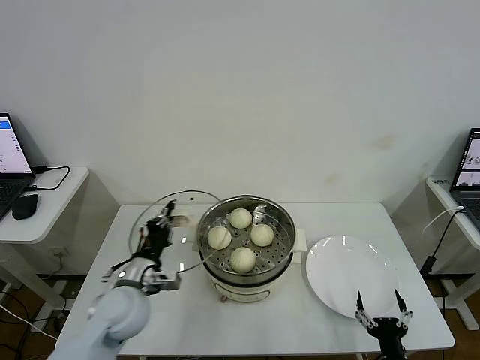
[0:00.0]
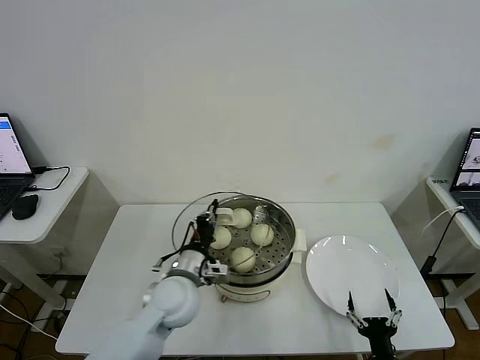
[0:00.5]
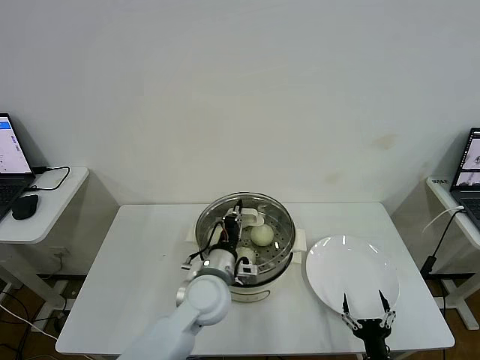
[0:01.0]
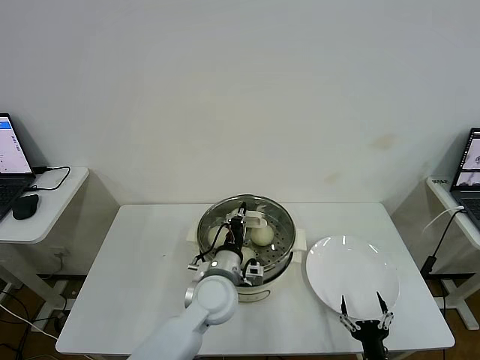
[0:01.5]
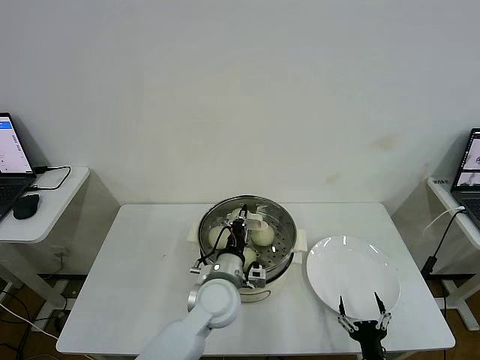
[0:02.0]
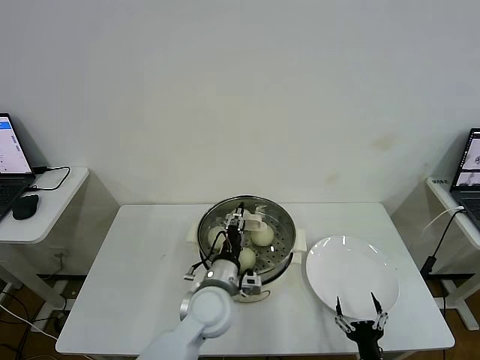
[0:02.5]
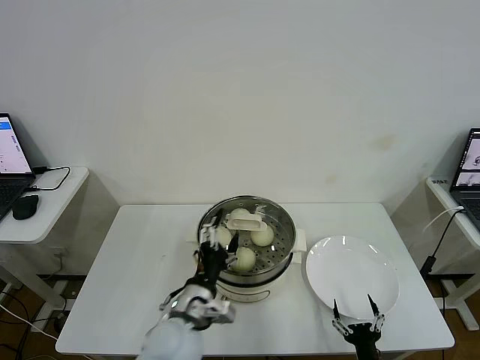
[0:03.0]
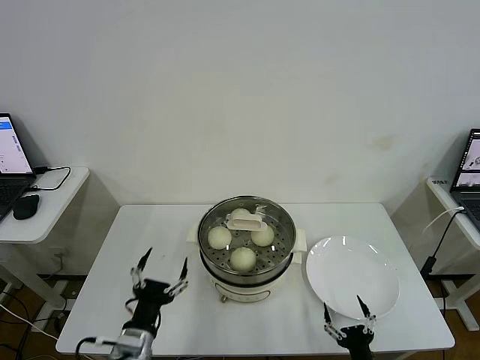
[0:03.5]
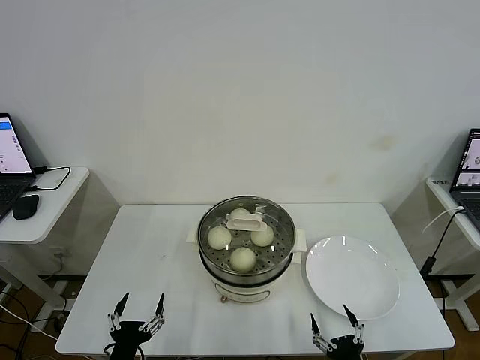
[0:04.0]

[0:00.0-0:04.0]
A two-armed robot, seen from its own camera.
Task of the whole recording: take steamed baozi put them in steamer then cover it.
Step, 0:00.0 to 0:02.5: Place the pot lid on the steamer with left gripper.
0:00.0 to 0:02.0: The left gripper goes approximately 20 cm to the right.
0:02.0 to 0:04.0: The right gripper ends up about 5 cm from where it was. Meanwhile the left gripper shifts roughly 30 cm backward and to the left, and opens up.

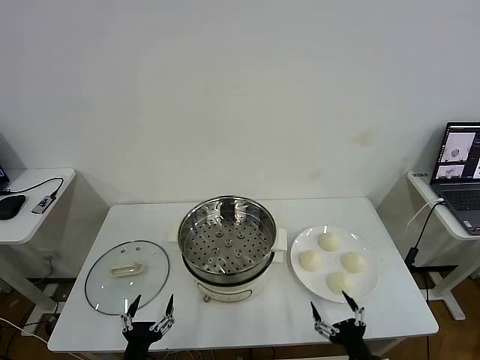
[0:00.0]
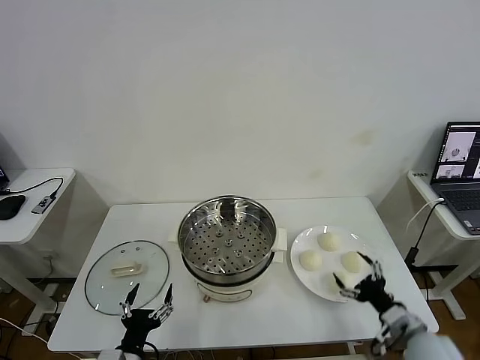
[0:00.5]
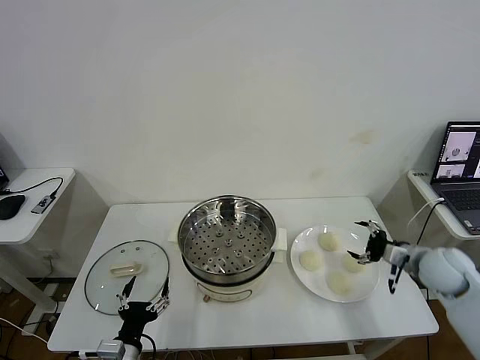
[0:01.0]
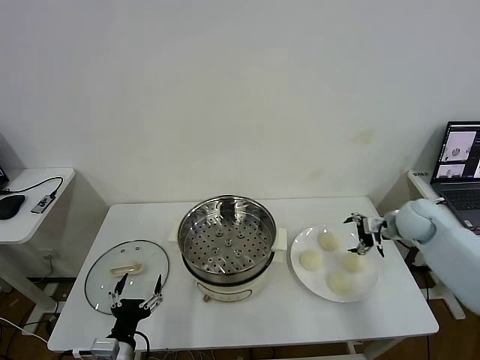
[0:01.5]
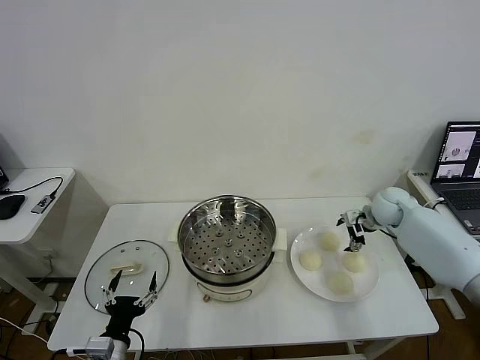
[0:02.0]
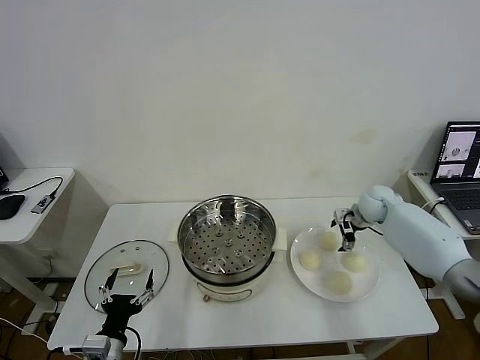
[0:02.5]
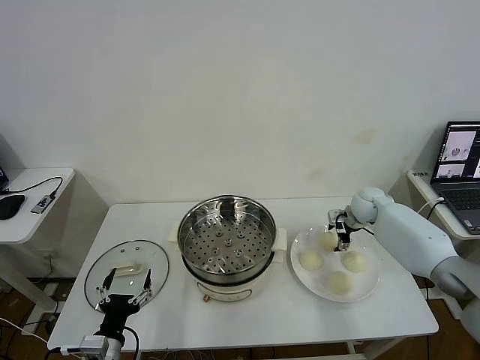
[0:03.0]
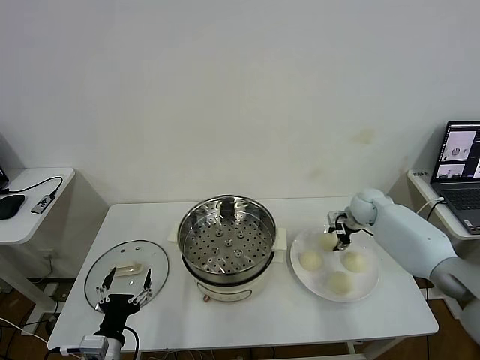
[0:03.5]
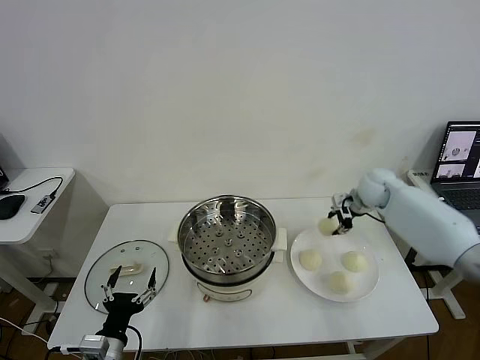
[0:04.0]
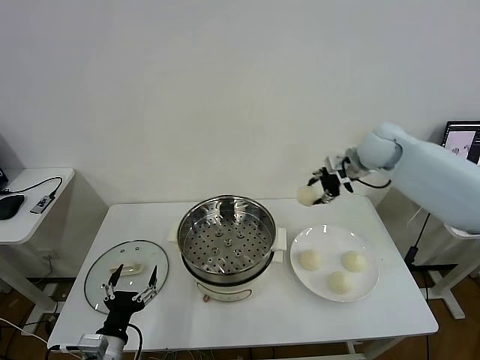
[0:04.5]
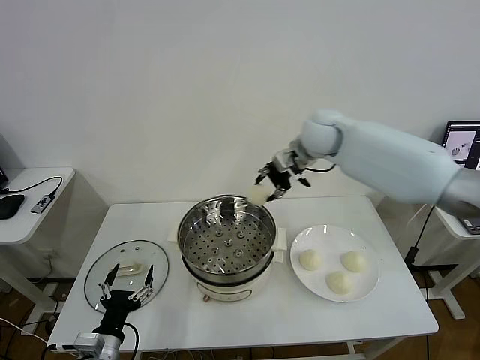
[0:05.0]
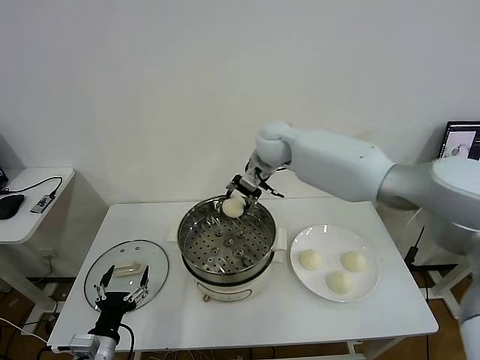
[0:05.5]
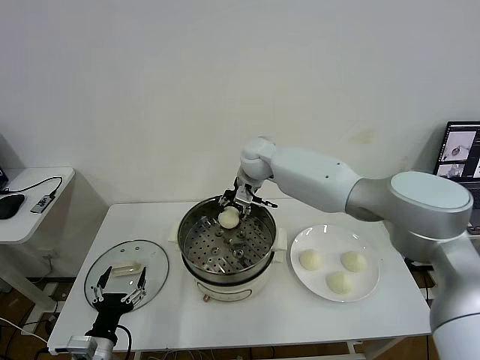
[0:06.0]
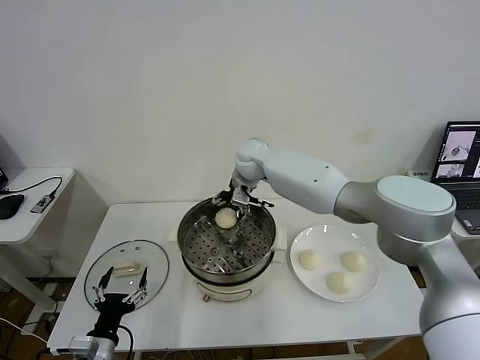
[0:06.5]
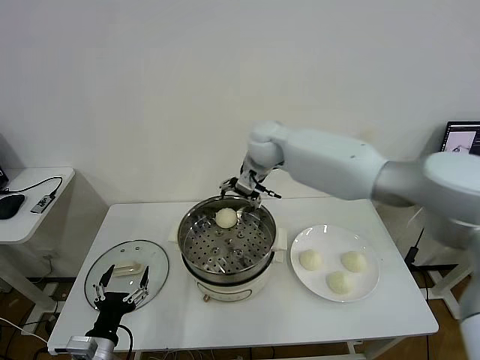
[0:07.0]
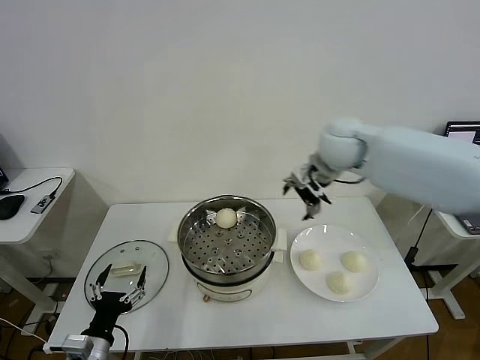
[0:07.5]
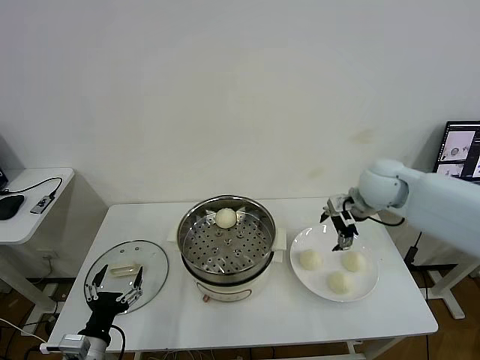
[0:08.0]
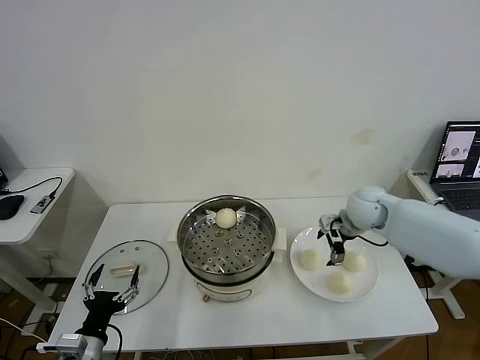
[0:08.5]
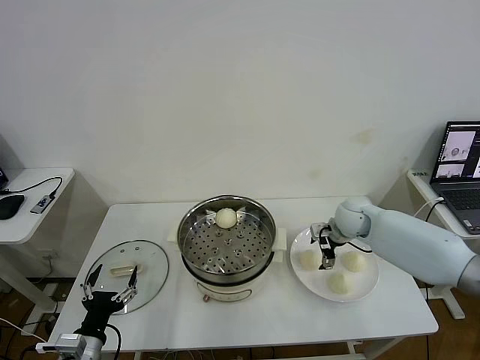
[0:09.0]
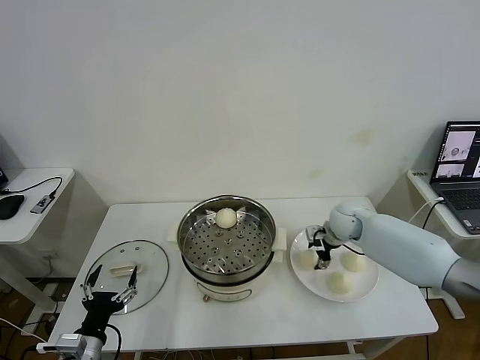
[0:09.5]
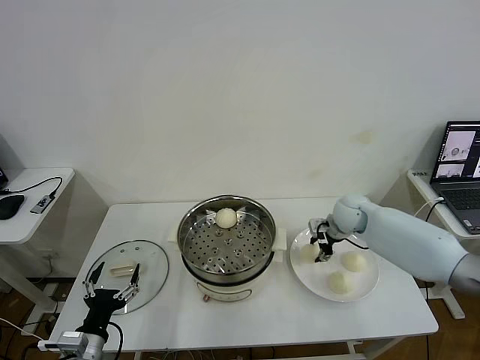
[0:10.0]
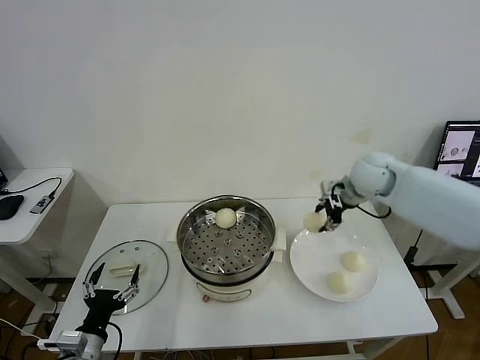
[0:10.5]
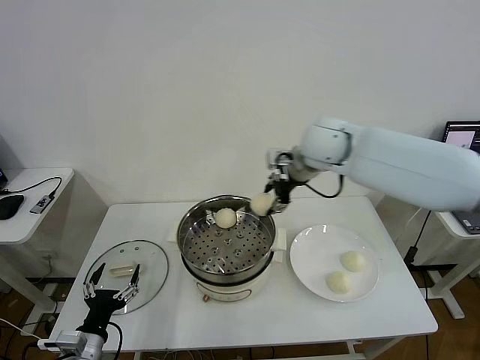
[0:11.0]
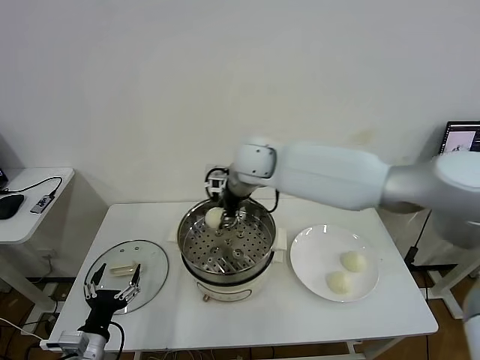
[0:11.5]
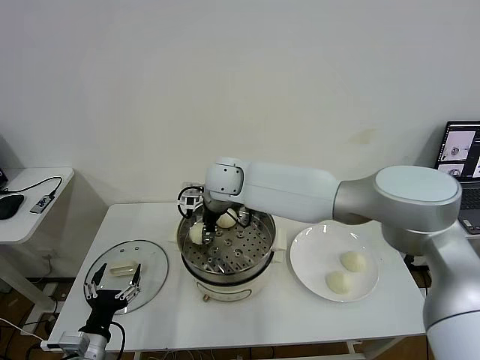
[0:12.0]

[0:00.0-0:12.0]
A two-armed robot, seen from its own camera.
Task of the whole recording: take steamed baozi put them in steamer then cover it.
Step, 0:00.0 to 0:03.5: Grasp the baozi in the plate with right gripper.
Step, 0:04.0 to 0:06.5: Place the baozi on the steamer with right gripper.
Step, 0:07.0 to 0:10.0: Grasp the baozi in the plate with right gripper.
0:02.0 to 0:04.0: The right gripper goes some 10 cm upward, and closes up.
0:04.0 to 0:06.0: The right gripper moves to the left, approximately 30 cm.
0:06.0 to 0:08.0: The right gripper goes about 30 cm to the right and backward, and opens.
0:08.0 to 0:10.0: The right gripper shifts about 10 cm downward, and closes its fingers.
0:10.0 to 0:12.0: The right gripper shifts some 35 cm to the left.

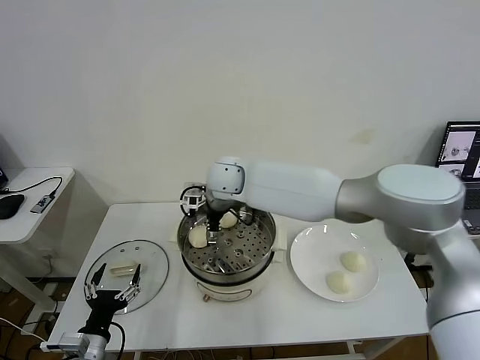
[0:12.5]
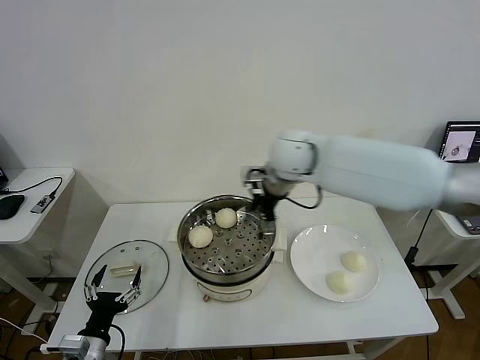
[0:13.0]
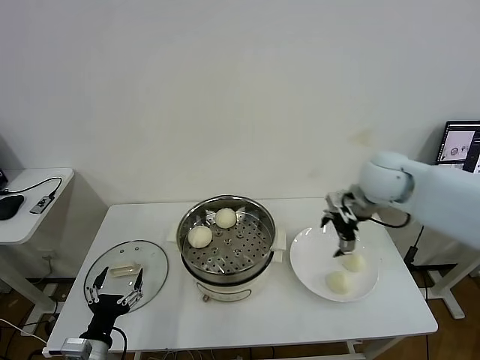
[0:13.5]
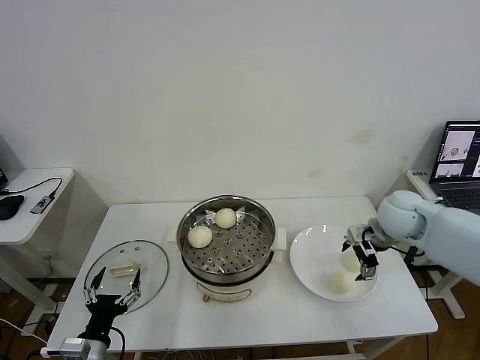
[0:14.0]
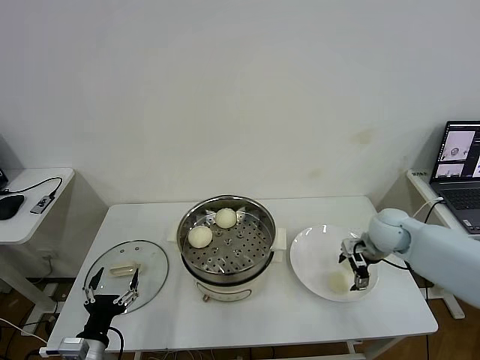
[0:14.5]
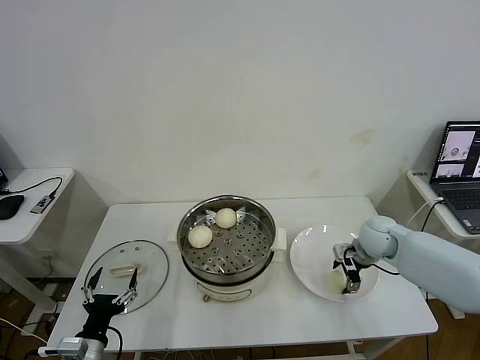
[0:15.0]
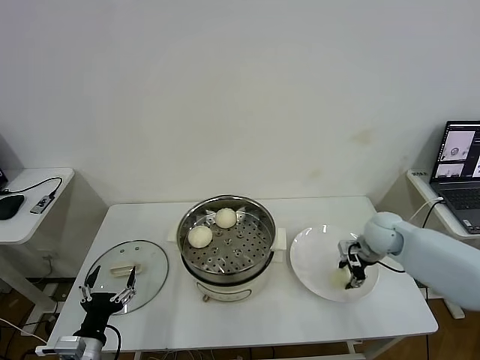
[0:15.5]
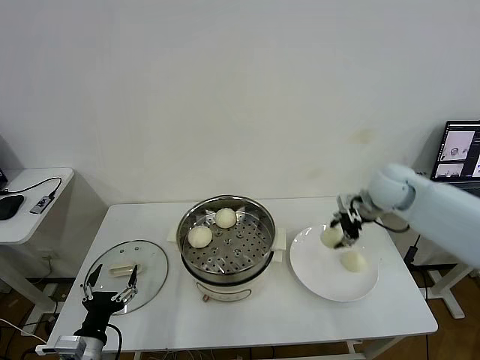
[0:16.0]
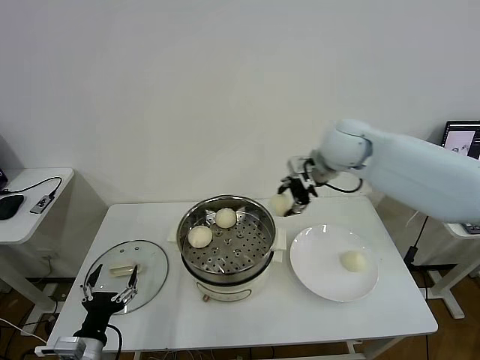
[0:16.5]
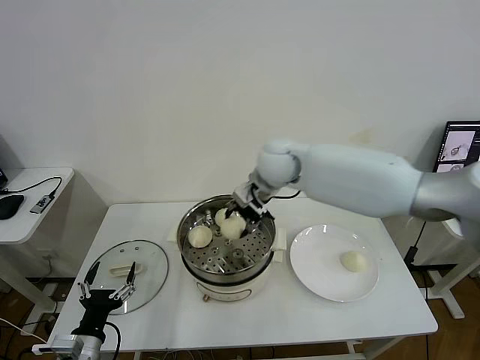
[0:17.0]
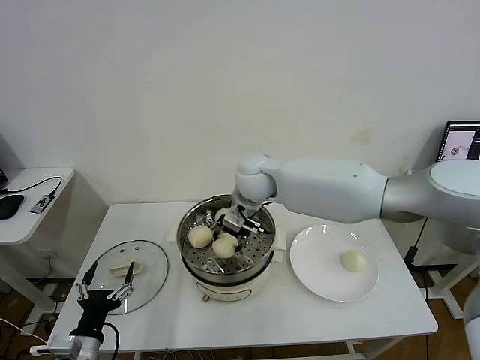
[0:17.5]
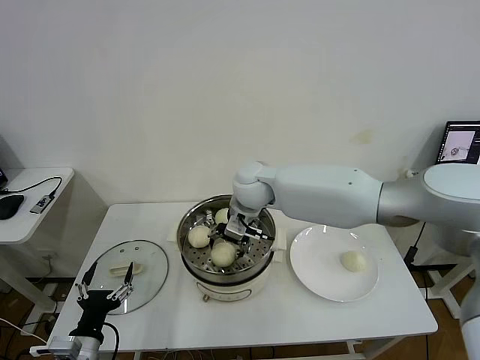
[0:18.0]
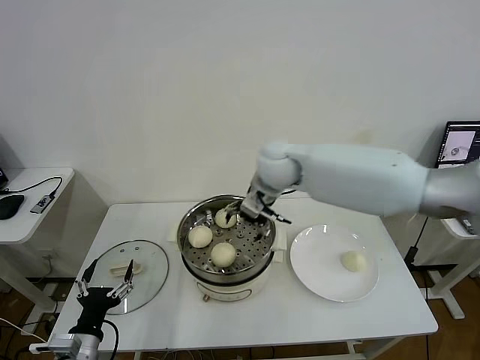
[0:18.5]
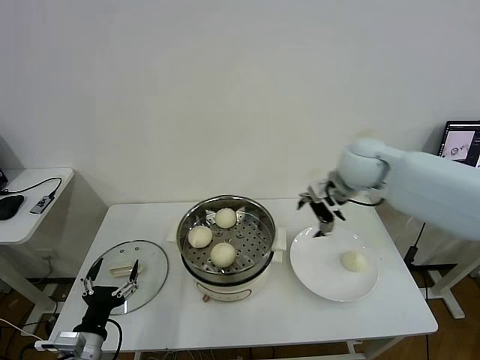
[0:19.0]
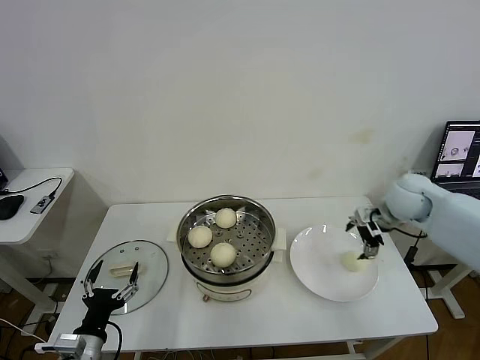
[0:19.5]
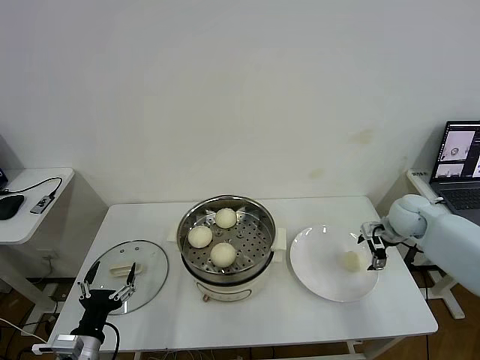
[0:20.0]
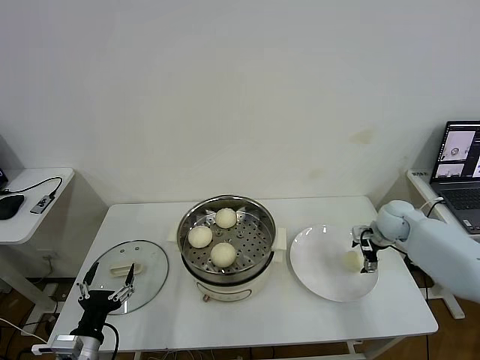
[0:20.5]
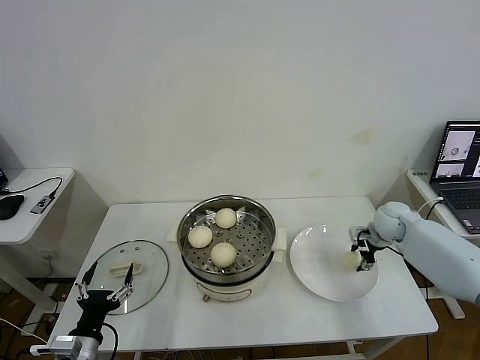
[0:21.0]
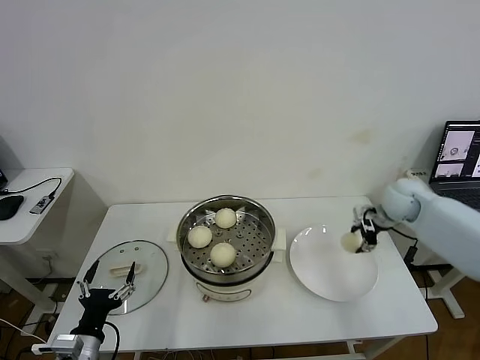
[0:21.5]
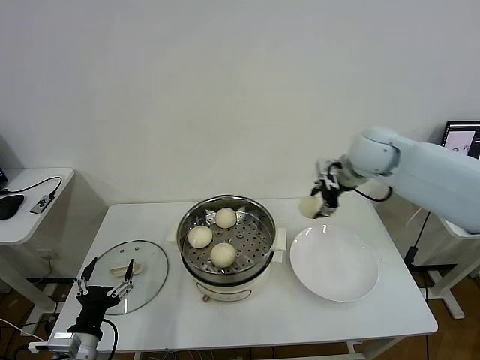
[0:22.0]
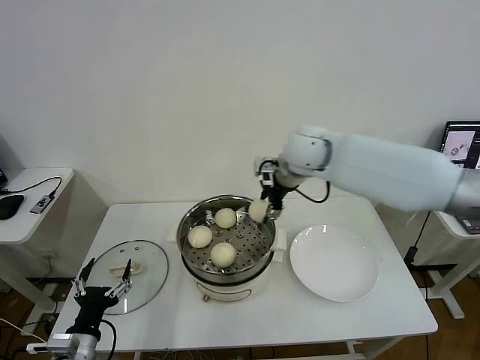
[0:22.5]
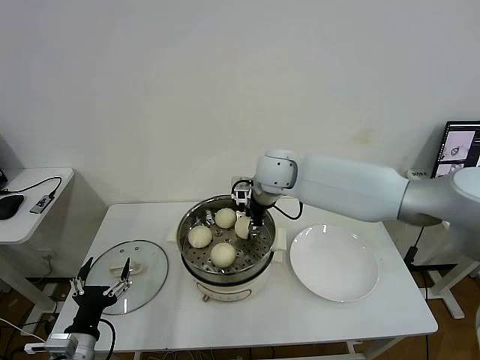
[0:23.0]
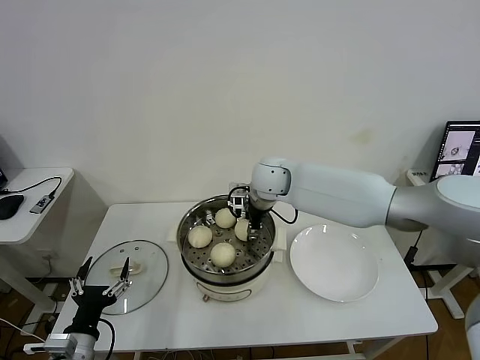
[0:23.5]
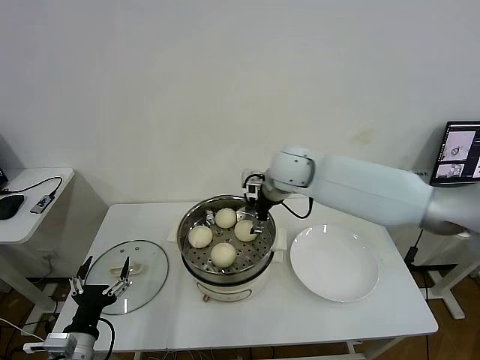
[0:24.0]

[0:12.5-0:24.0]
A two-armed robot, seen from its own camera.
Task of the whole recording: take steamed baozi put them in steamer then cover it.
Step, 0:13.0 to 0:15.5: Grasp the baozi in the plate with right gripper.
Step, 0:16.0 to 0:18.0: Place the baozi on the steamer with right gripper.
Step, 0:18.5 to 0:21.0: Grasp the baozi in the plate with right gripper.
Step, 0:21.5 to 0:24.0: Place the baozi on the steamer with right gripper.
0:12.5 to 0:14.5: The right gripper moves to the right, approximately 35 cm.
0:14.5 to 0:16.5: The right gripper heads upward and to the left, covering about 25 cm, and closes its fingers.
0:16.5 to 0:18.5: The right gripper goes about 10 cm to the left, and opens.
0:18.5 to 0:20.0: The right gripper shifts roughly 35 cm to the right and downward.
0:20.0 to 0:22.0: The right gripper shifts some 20 cm upward and to the left, and closes its fingers.
0:22.0 to 0:24.0: The right gripper goes some 15 cm to the left, and opens up.
